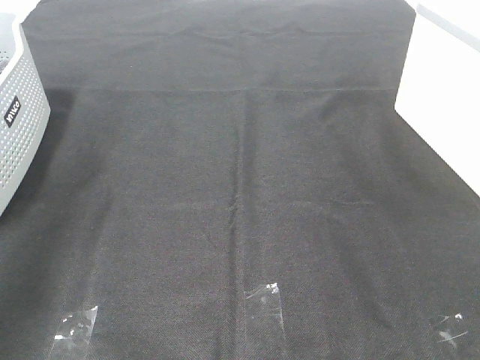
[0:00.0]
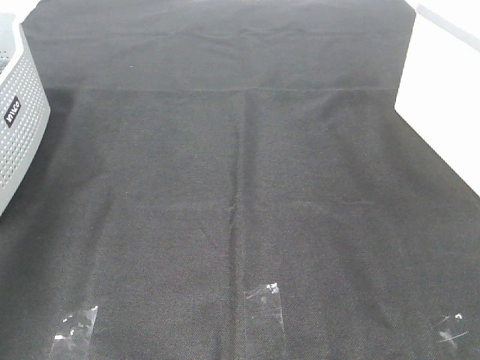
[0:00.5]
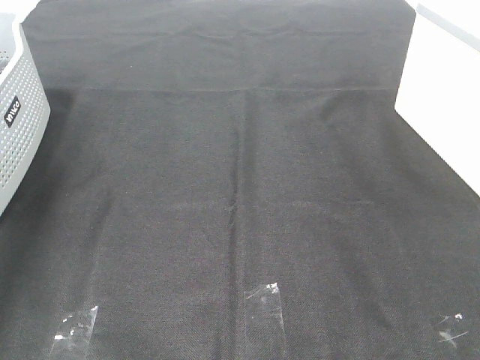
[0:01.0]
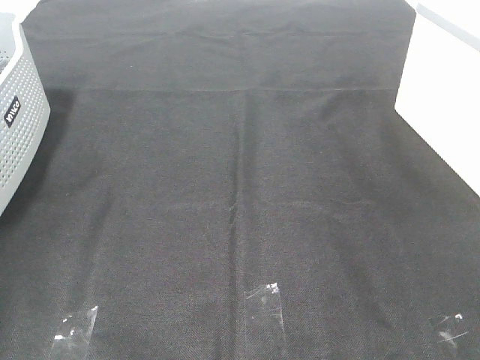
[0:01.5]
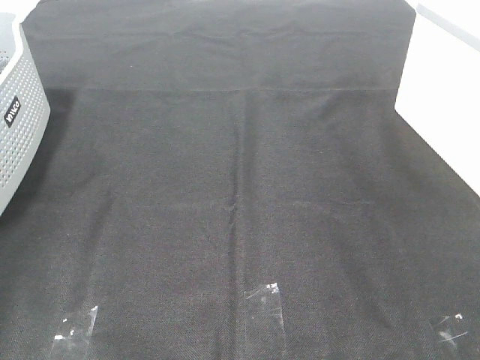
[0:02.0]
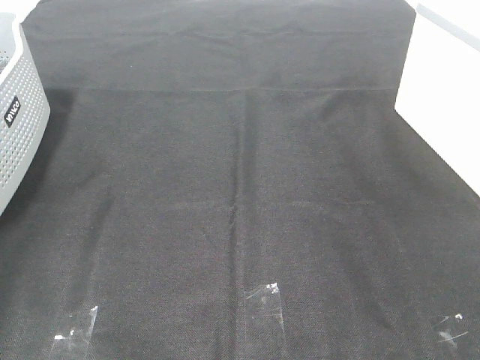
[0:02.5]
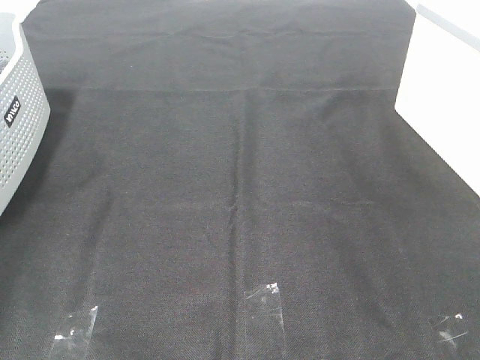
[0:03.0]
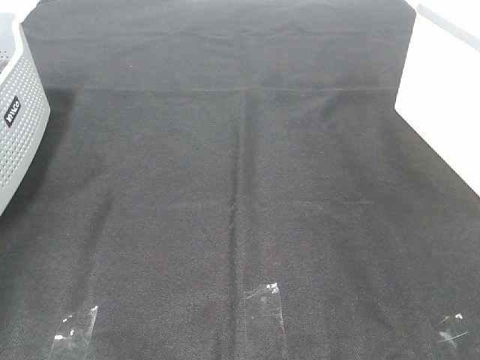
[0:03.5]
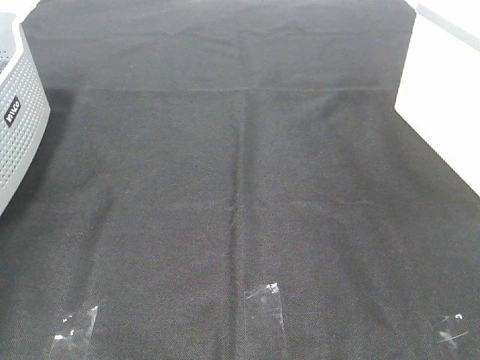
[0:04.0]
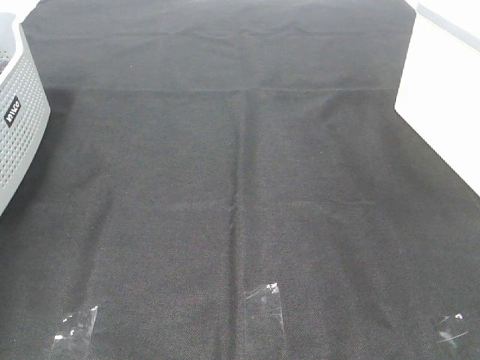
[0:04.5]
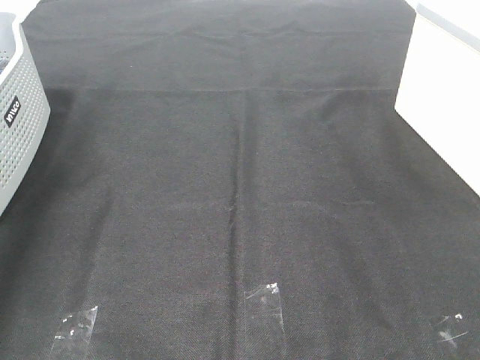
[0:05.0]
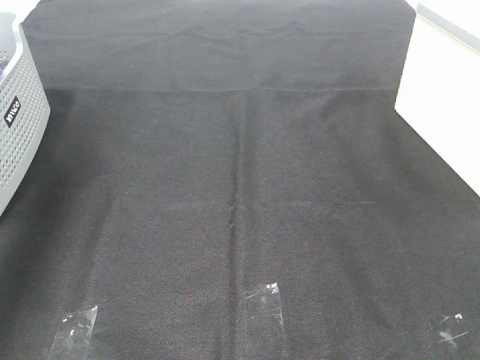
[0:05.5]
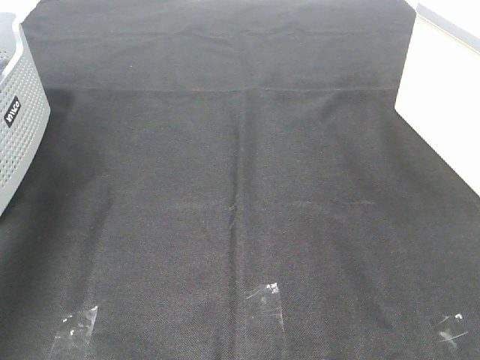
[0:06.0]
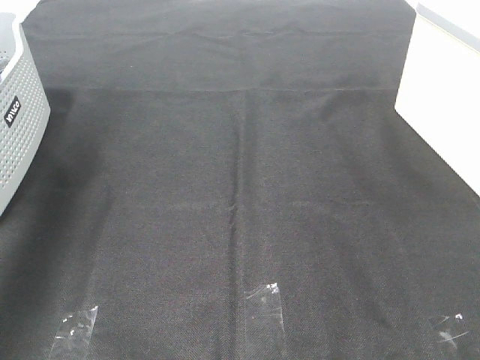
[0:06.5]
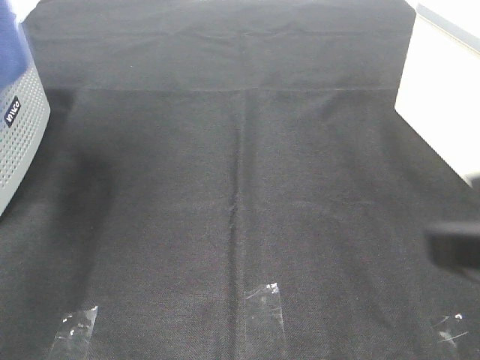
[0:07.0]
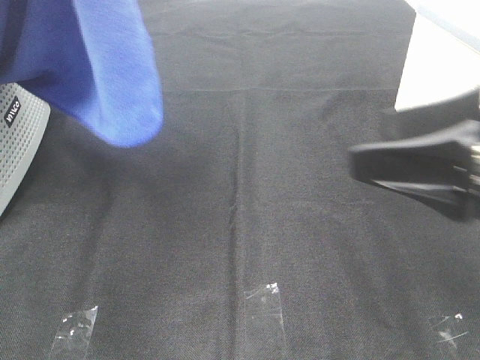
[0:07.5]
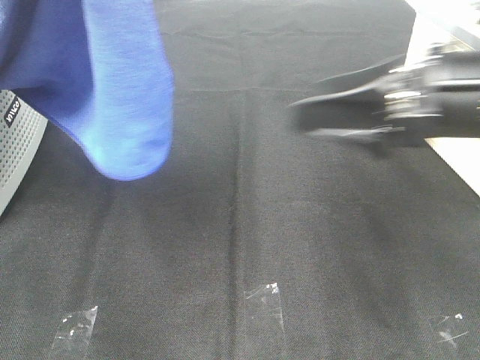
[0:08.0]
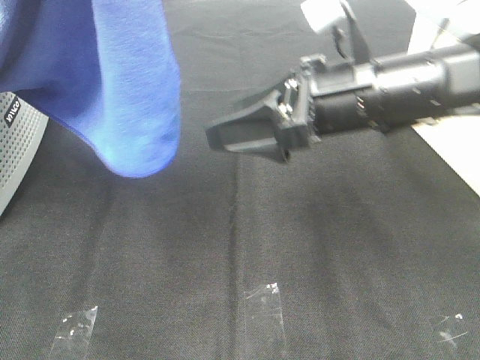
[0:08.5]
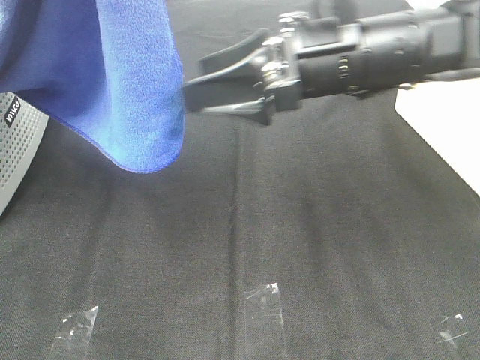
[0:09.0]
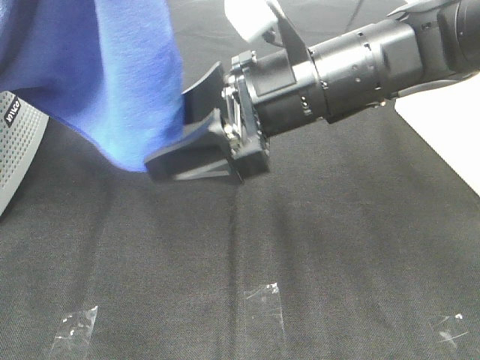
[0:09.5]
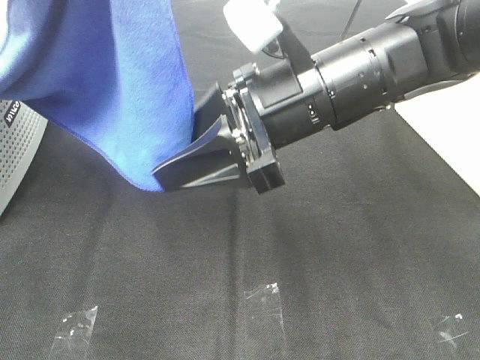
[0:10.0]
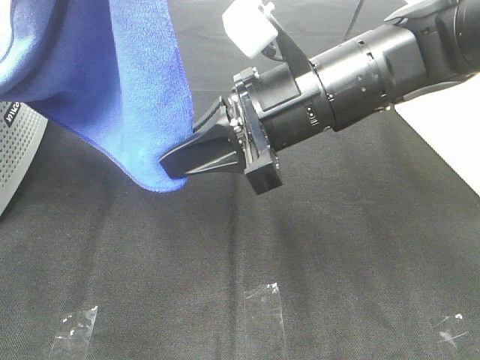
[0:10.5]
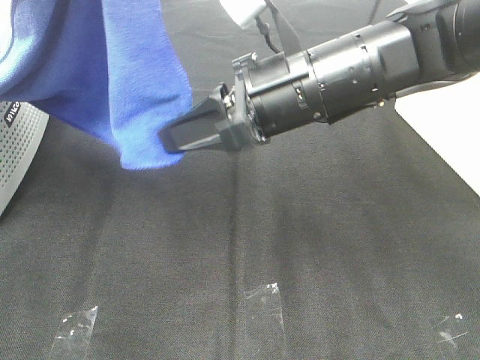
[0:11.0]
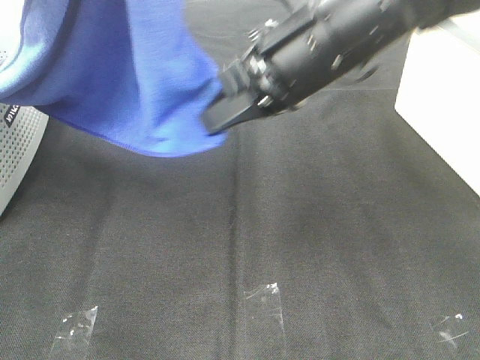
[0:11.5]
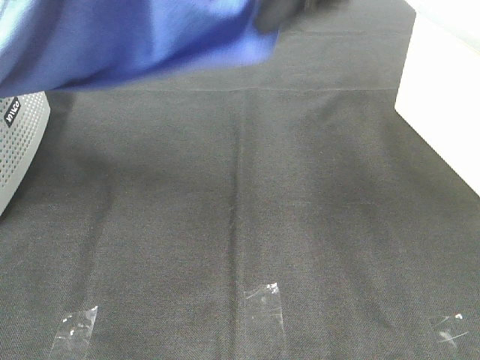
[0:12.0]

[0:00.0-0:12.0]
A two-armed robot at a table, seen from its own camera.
Task of the whole recording: Remove the towel and place it.
Step, 6.5 to 10.0 s: Right hand: grab a corner of the blue towel and straighten it.
0.0 to 2.0 s: The left gripper travels forward, downward and to the left by roughly 35 cm.
4.0 to 6.0 s: The left gripper goes roughly 25 cm upward, backward and to the right.
6.0 to 8.0 s: The right gripper heads forward and to the left, covering some 25 cm. Meanwhile the left gripper shifts approximately 20 cm to the right and backward.
8.0 to 10.0 s: The right gripper heads to the left, covering roughly 10 cm, and closes up.
10.0 to 12.0 s: The right gripper heads upward, covering about 15 cm, and closes.

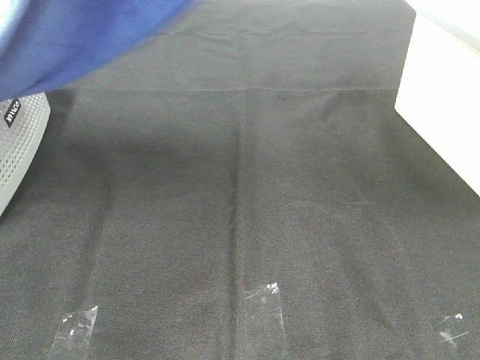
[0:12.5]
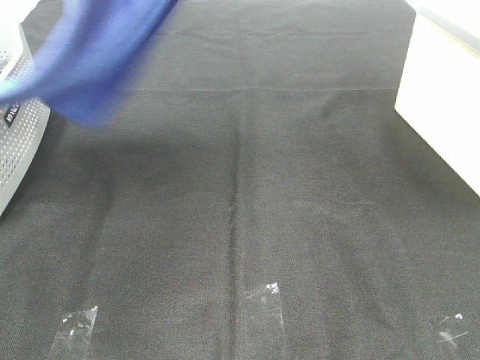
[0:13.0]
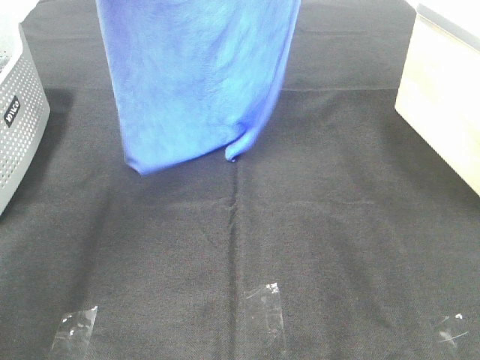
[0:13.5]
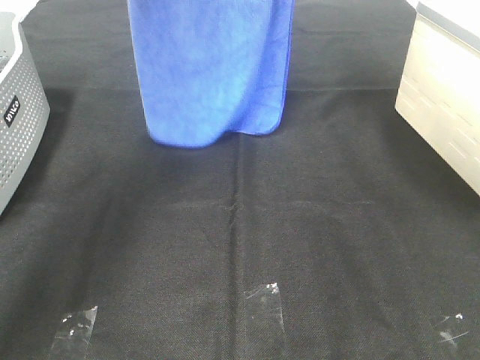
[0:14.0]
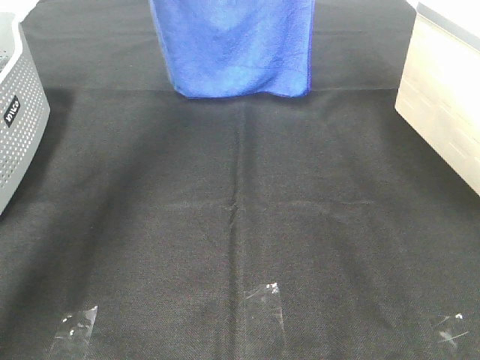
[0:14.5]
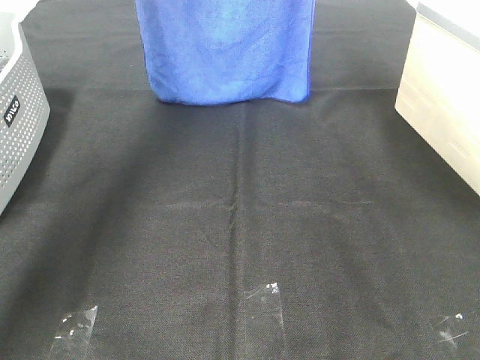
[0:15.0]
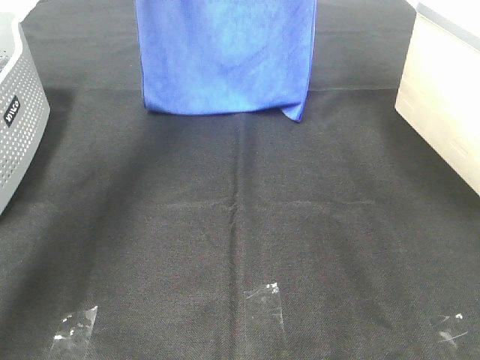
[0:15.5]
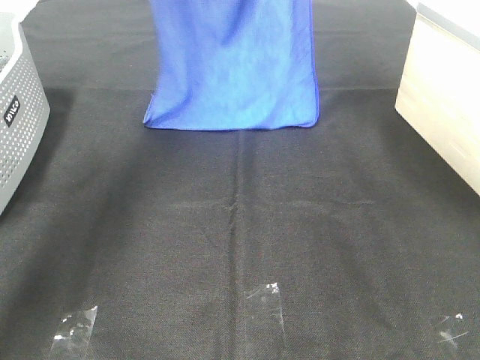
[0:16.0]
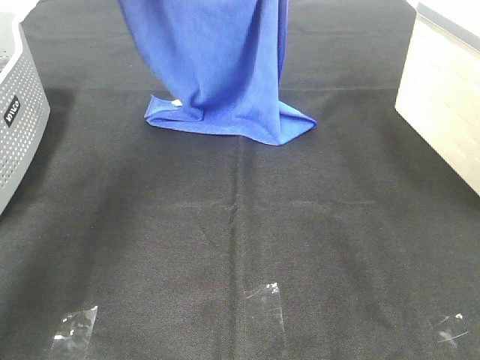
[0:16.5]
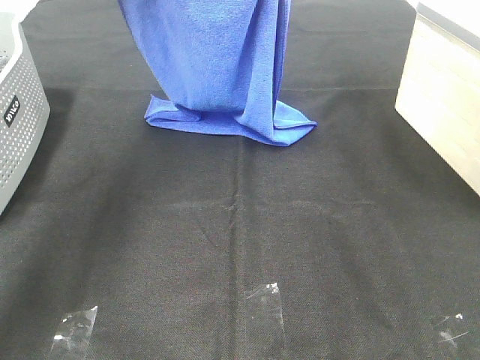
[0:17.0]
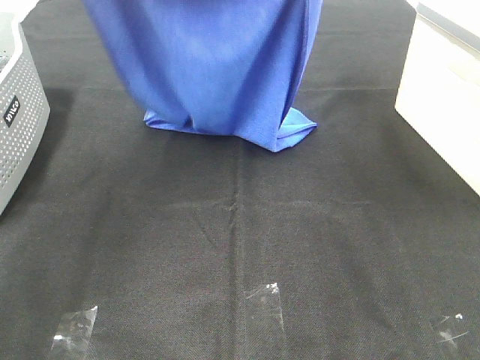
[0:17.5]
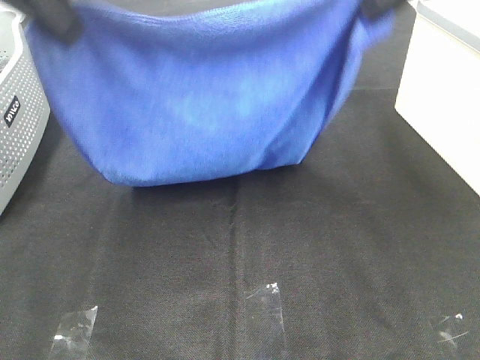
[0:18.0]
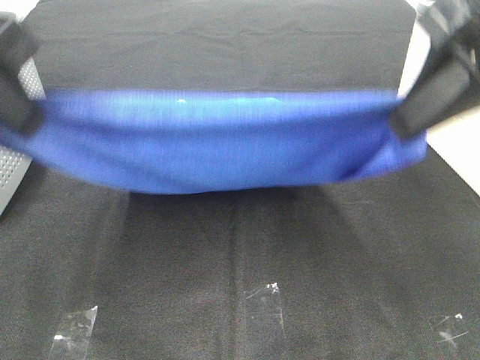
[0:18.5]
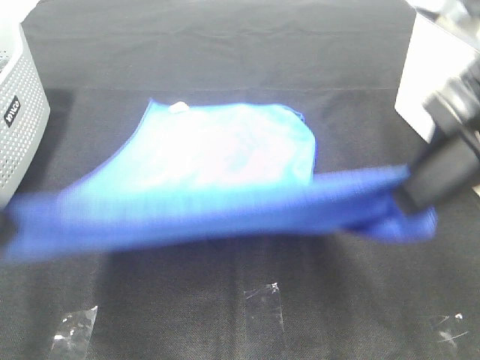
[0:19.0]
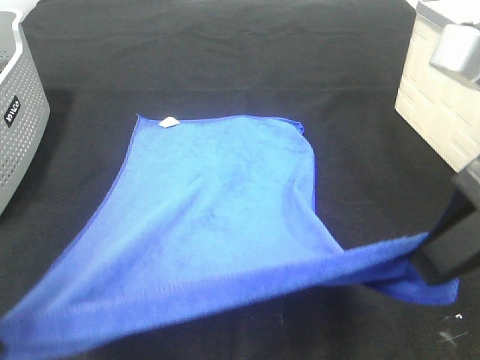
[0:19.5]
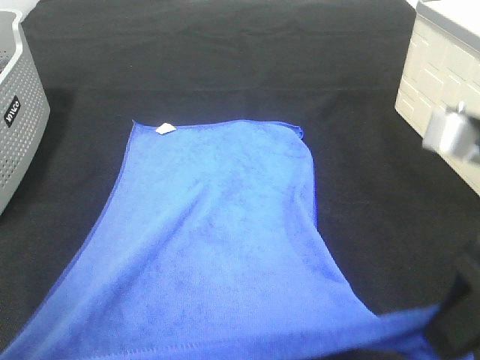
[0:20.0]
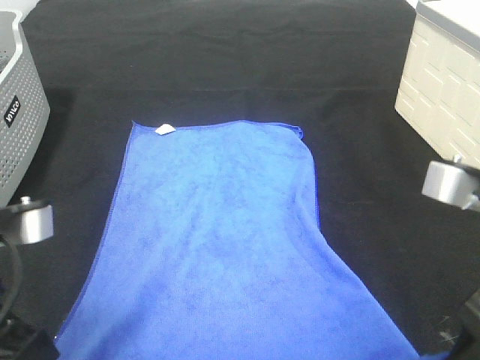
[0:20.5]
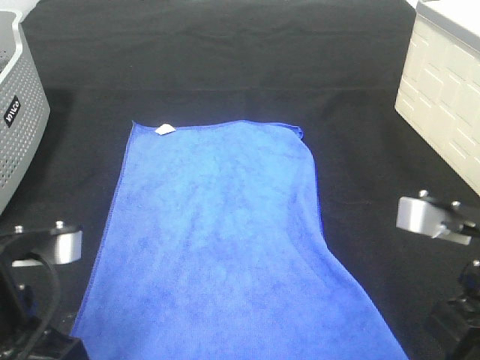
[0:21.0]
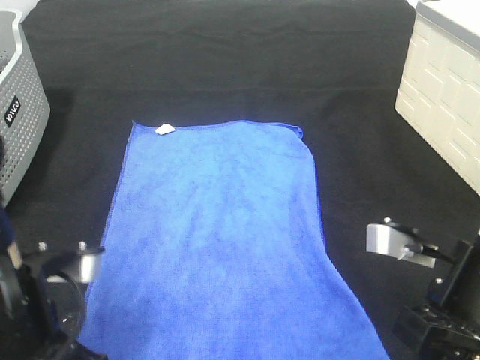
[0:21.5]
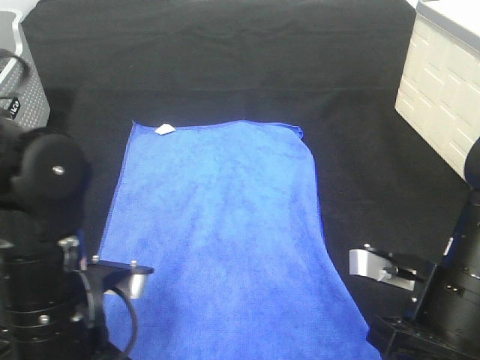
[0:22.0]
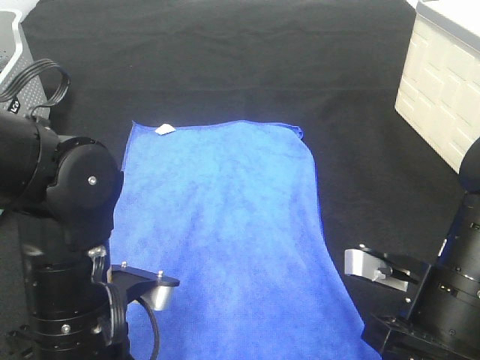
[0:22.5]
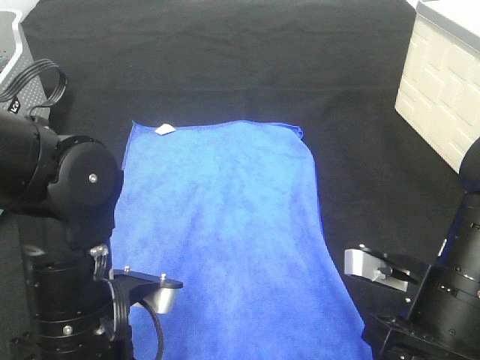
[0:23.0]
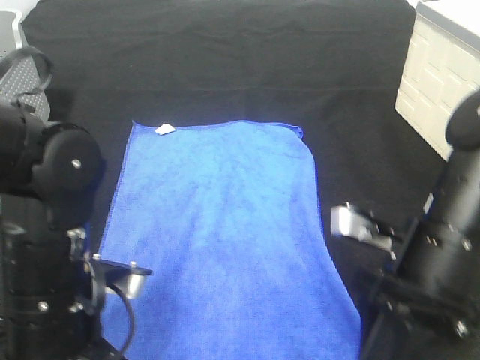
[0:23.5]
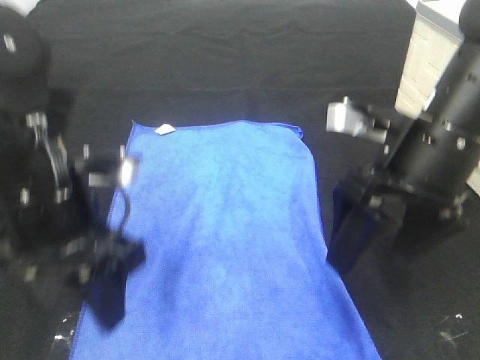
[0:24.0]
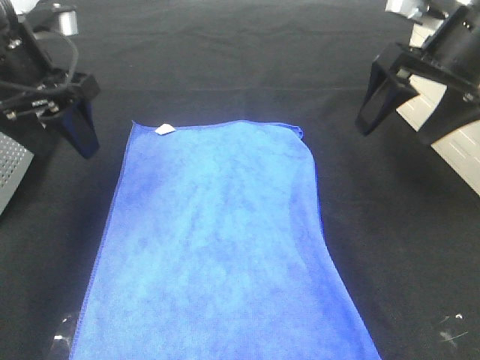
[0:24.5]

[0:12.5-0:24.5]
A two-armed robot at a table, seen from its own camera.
Task of the whole recording: Remove the towel and place it.
Step, 12.5 to 17.0 s: Left hand: spread the blue towel flat on the table.
Step, 12.5 to 17.0 s: Right hand: spread the blue towel flat on the table.
12.5 to 14.5 s: The right gripper goes roughly 15 cm forward; the left gripper travels forward by some 25 cm.
14.5 to 16.5 s: Both grippers travel together backward, approximately 5 cm.
16.5 to 18.5 s: The left gripper moves backward, about 25 cm. Meanwhile the right gripper travels backward and downward by roughly 25 cm.
18.5 to 20.5 s: The grippers both shift downward and backward by roughly 15 cm.
20.5 to 22.5 s: The left gripper moves downward and to the right, some 10 cm. The right gripper shifts roughly 10 cm downward, and opens up.
22.5 to 24.5 s: The right gripper goes some 25 cm forward and upward, and opens. Meanwhile the left gripper is displaced forward, upward and to the left by approximately 25 cm, and opens up.

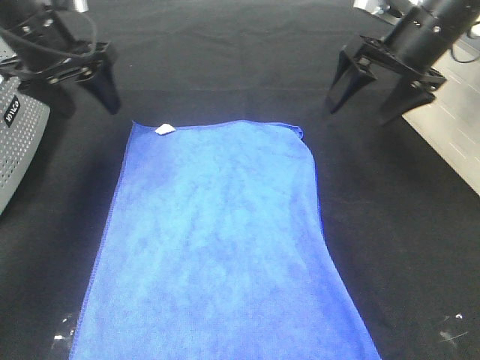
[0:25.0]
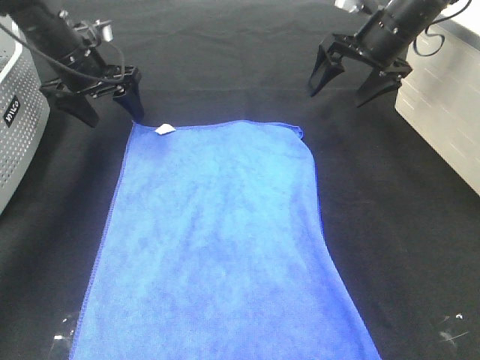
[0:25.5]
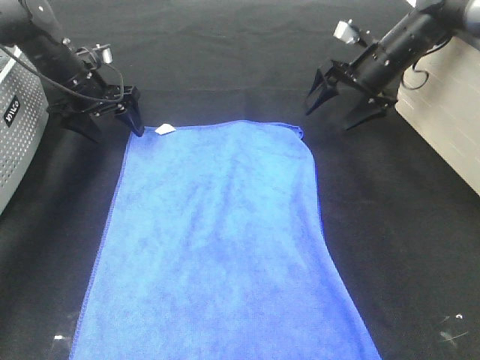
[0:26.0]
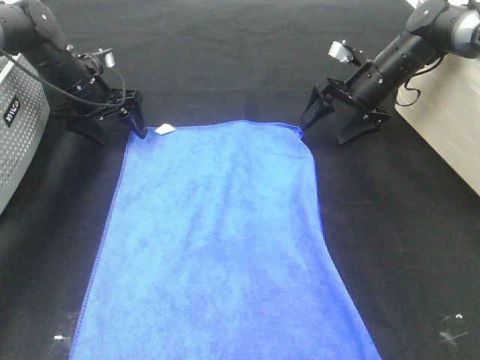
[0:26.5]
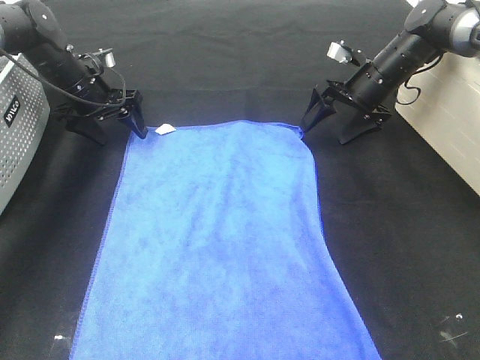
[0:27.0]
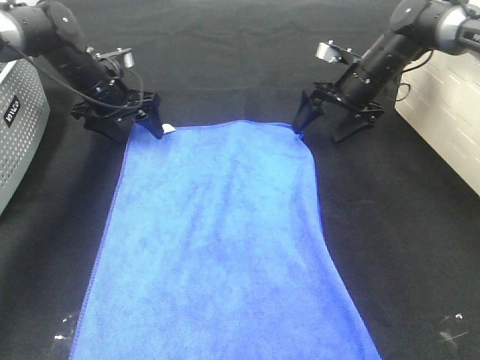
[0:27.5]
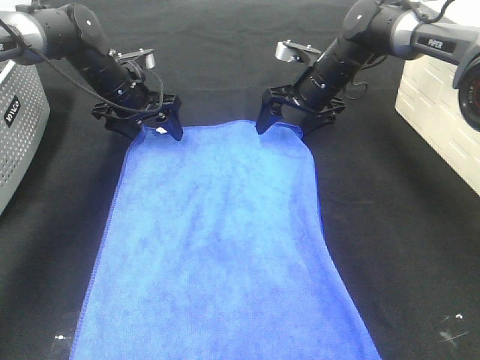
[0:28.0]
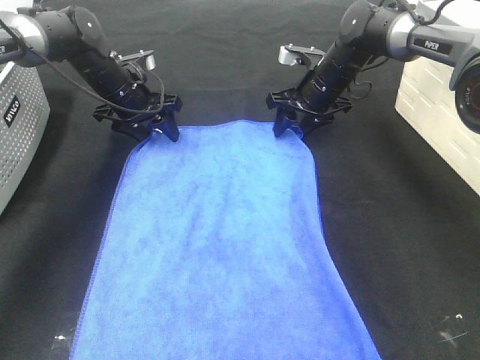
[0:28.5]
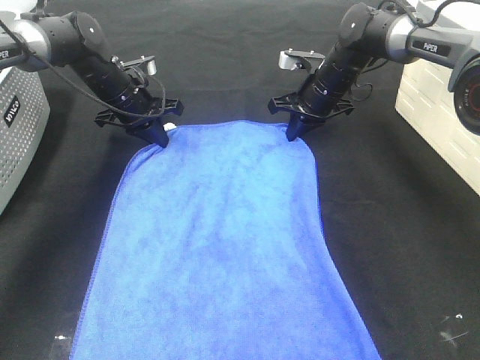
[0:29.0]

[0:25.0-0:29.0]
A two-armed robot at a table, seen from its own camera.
Task of the whole recording: Remove the towel and place it.
25.0 to 27.0 s: The two grippers go roughly 15 cm downward and forward.
27.0 to 29.0 s: The left gripper shifts roughly 5 cm to the right, and closes up; the right gripper is displaced to the left by about 10 cm, and closes its fingers.
